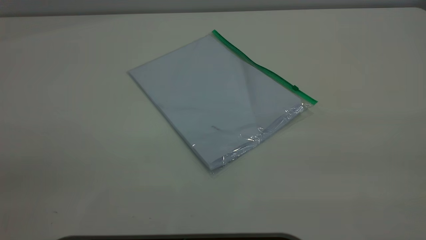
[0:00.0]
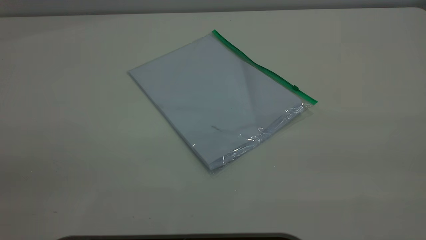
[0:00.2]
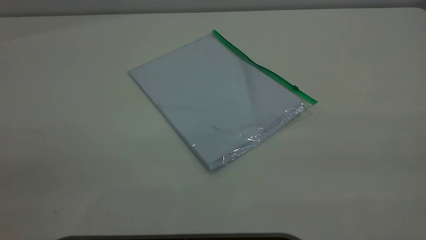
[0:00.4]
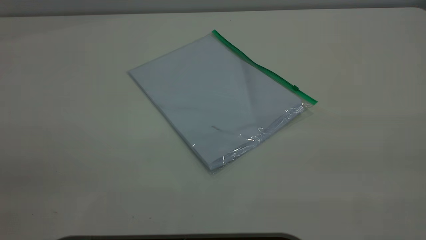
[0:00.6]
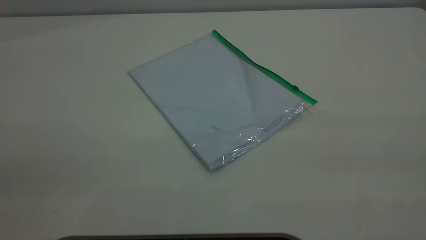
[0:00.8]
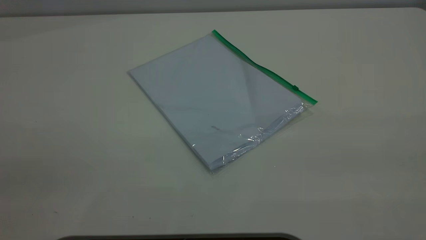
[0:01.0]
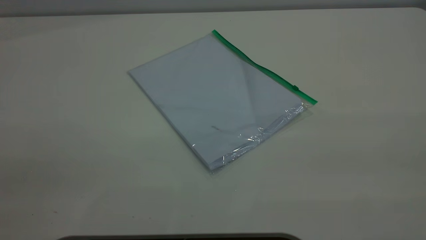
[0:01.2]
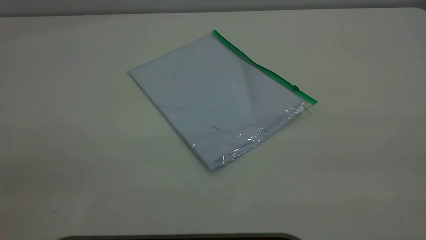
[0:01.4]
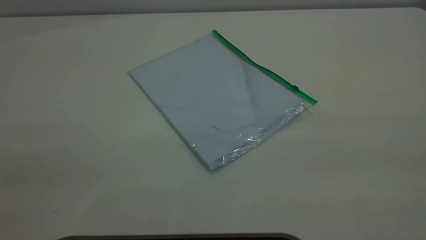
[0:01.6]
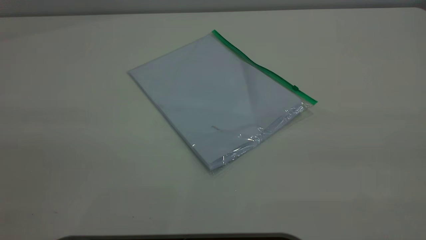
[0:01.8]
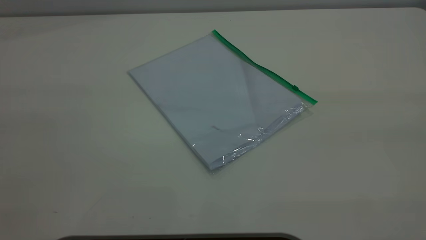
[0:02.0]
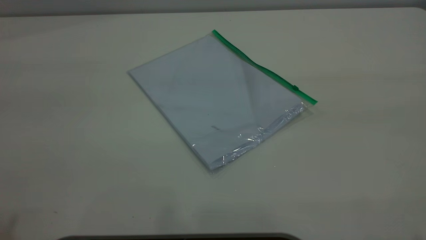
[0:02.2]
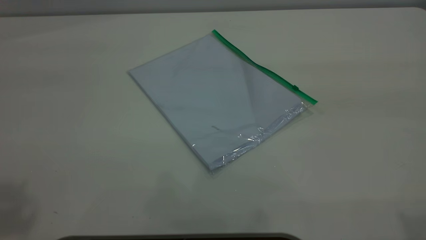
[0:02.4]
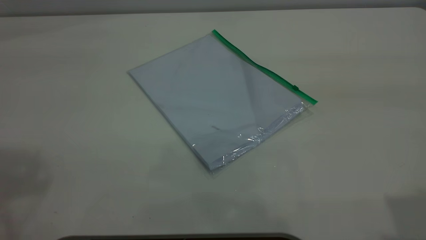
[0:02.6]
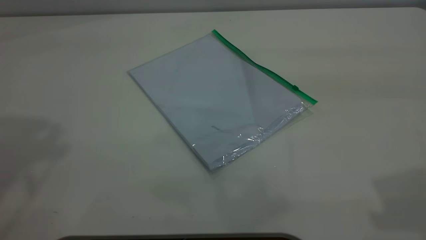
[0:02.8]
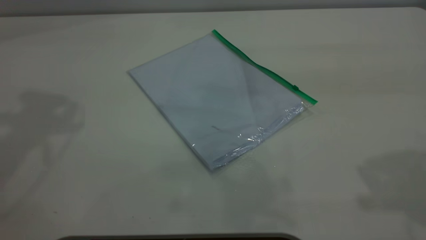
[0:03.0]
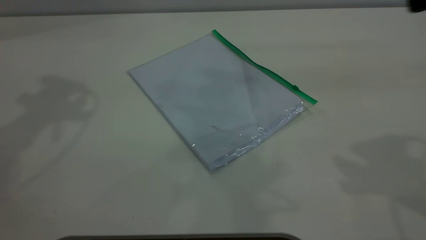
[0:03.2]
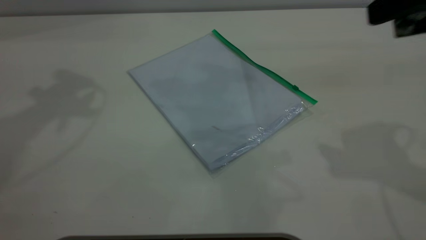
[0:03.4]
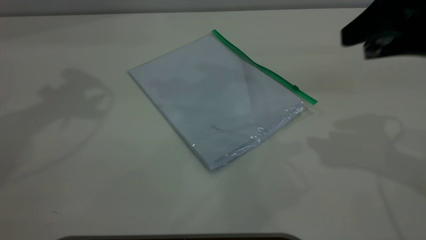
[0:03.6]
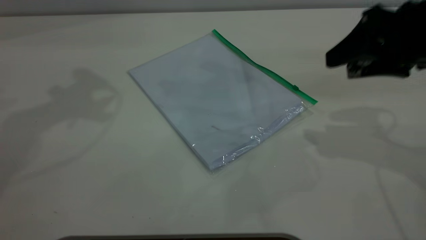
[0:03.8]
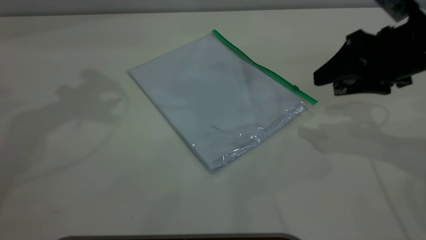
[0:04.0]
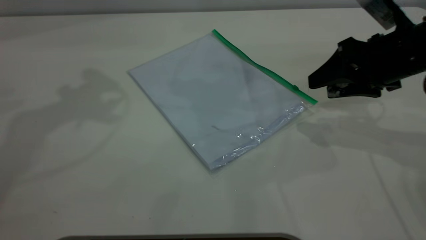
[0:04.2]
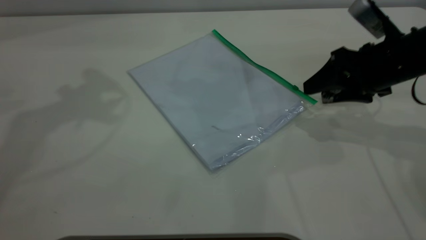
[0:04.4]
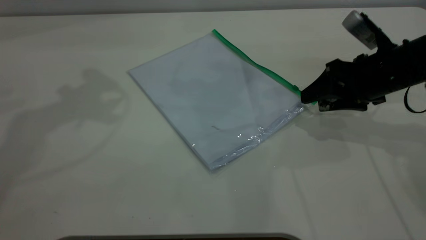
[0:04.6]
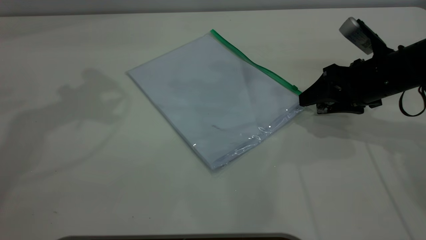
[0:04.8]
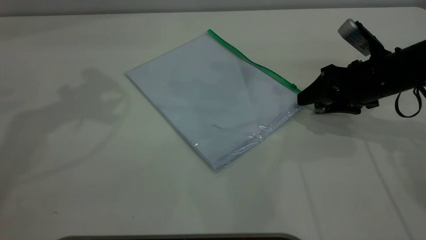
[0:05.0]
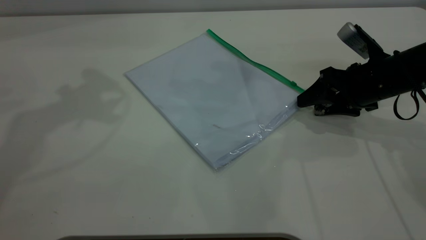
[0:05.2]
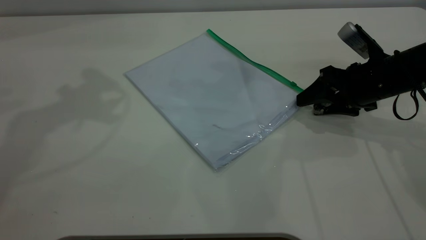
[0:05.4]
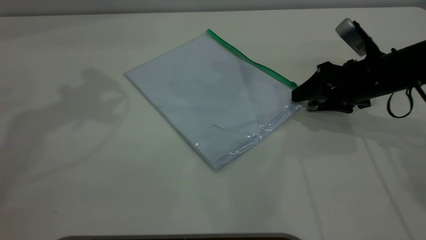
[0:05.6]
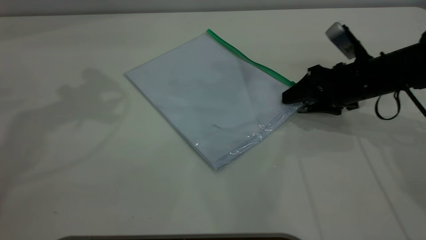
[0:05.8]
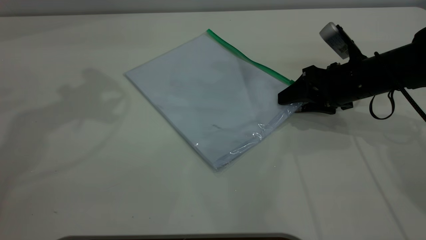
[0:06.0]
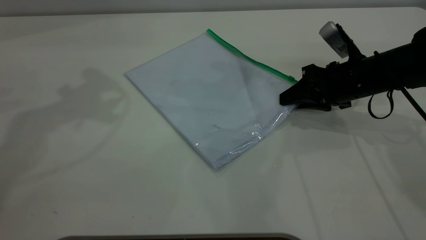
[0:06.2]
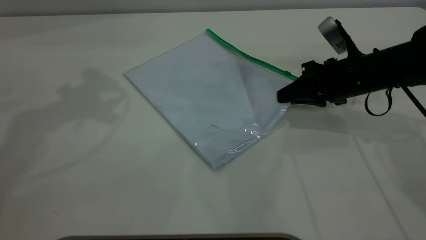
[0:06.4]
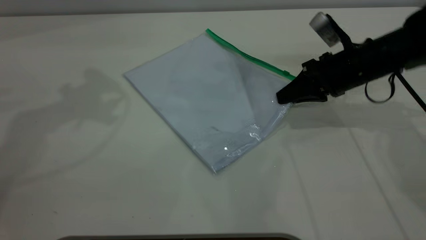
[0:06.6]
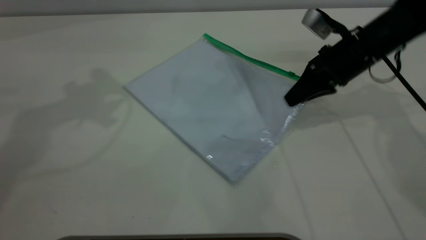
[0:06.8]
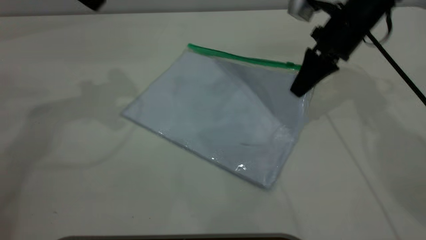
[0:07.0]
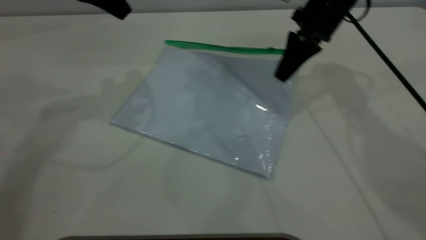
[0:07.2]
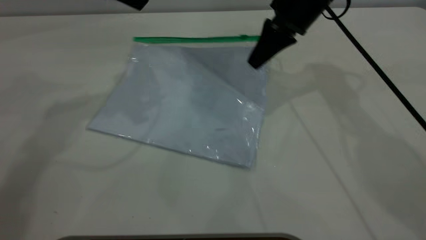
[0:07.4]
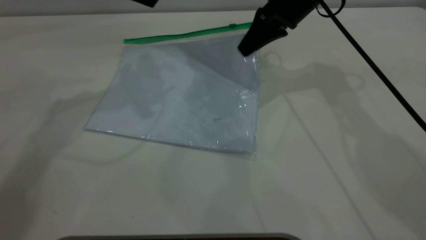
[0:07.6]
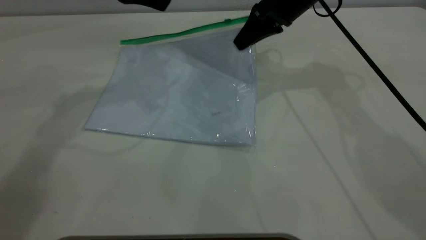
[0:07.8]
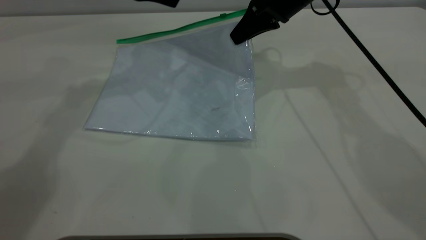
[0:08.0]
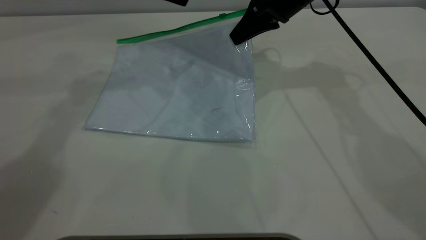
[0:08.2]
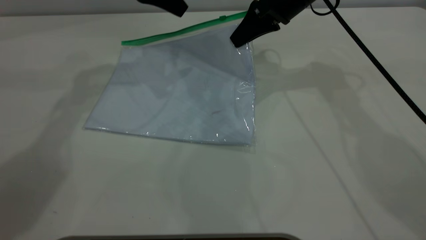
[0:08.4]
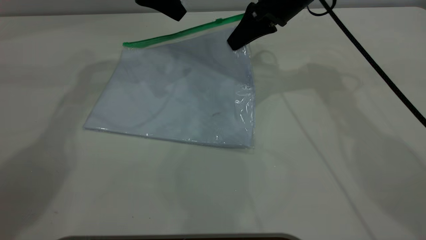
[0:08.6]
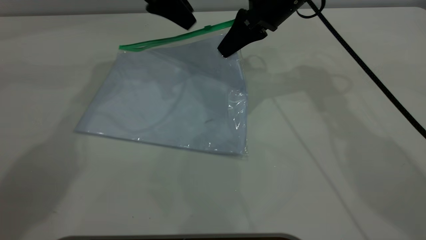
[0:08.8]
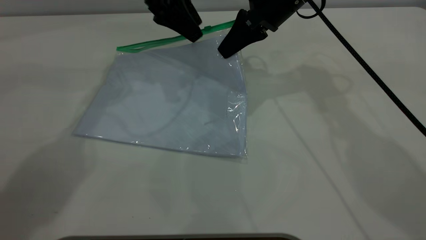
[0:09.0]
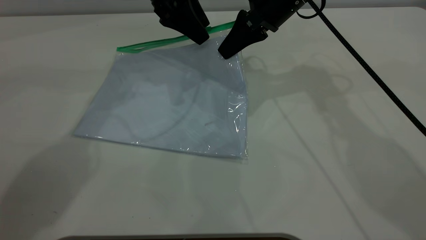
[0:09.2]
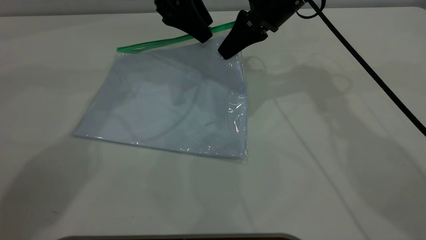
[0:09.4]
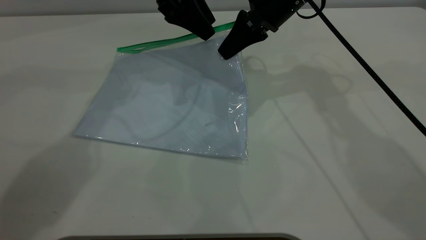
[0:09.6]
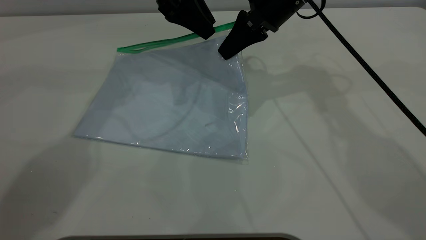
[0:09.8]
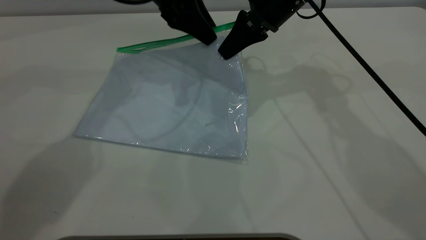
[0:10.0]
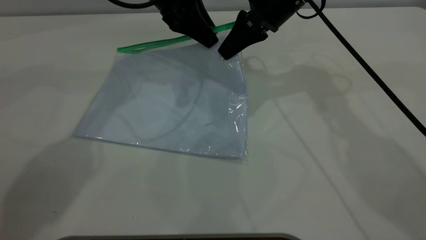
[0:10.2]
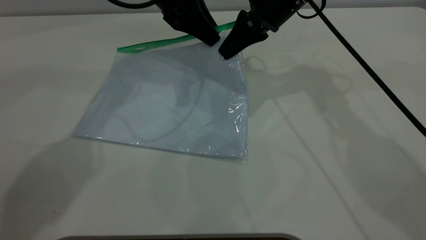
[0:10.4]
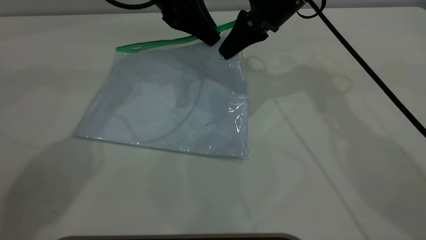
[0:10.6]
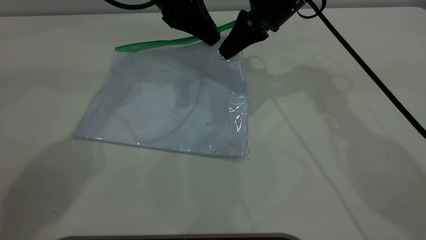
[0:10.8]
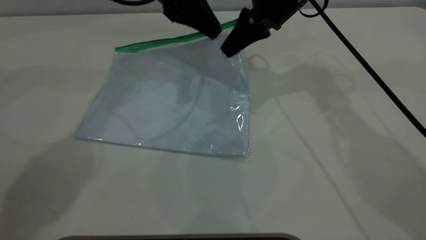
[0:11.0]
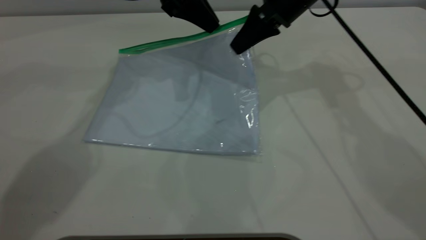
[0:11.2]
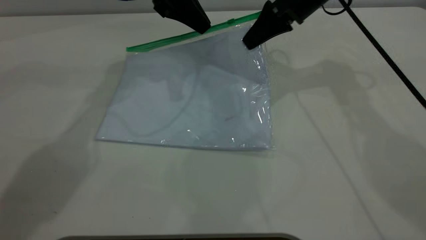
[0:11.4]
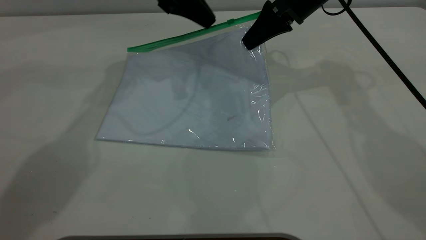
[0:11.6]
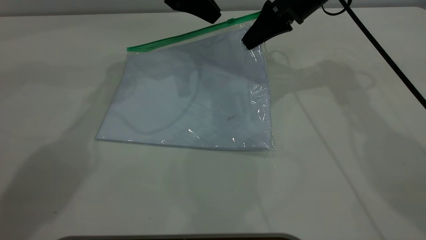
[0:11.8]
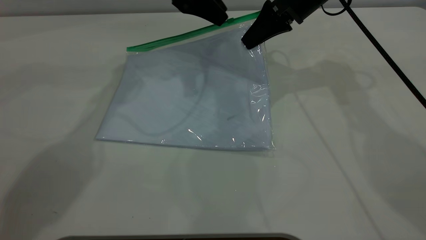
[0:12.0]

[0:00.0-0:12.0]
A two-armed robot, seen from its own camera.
Step, 0:00.0 to 0:06.6: Pick up the transparent plastic bag with the right gripper.
0:00.0 to 0:01.6: Both grippers stay put.
0:03.0 to 0:04.4: The right gripper goes roughly 25 cm downward and forward.
0:04.4 to 0:06.0: The right gripper moves downward, about 5 cm.
0:06.0 to 0:07.6: The left gripper goes some 10 cm downward and to the right. Meanwhile the right gripper moves upward, forward and to the left, roughly 15 cm, and closes.
0:07.6 to 0:09.0: The left gripper heads to the right, forward and downward, covering some 10 cm.
0:09.0 to 0:10.4: The left gripper closes up.
0:10.4 to 0:12.0: The grippers move only a little.

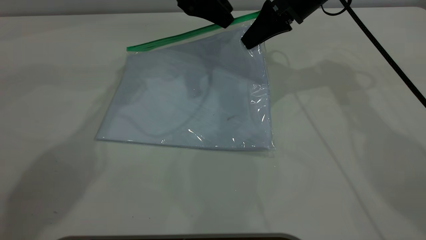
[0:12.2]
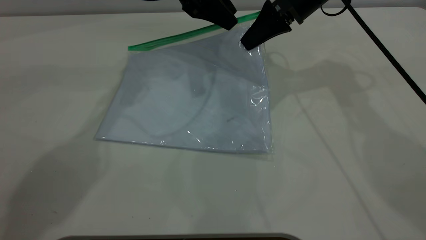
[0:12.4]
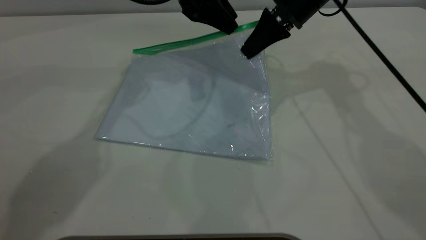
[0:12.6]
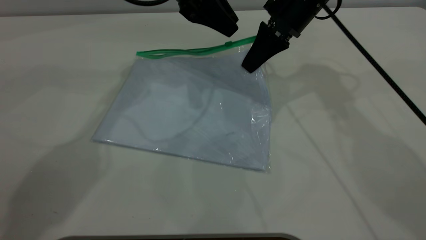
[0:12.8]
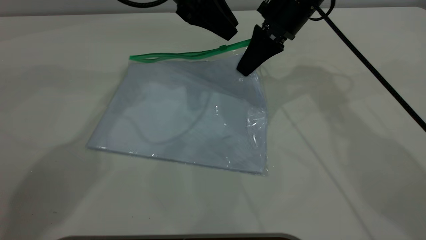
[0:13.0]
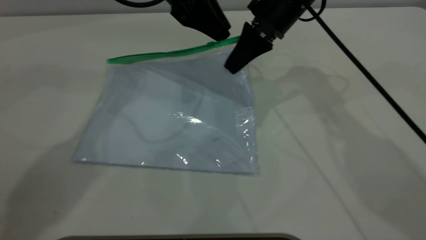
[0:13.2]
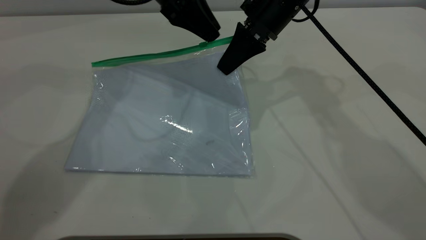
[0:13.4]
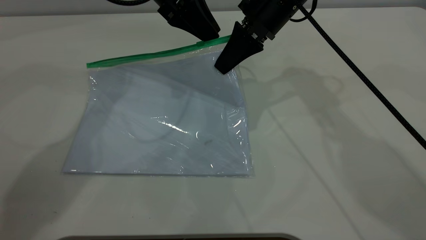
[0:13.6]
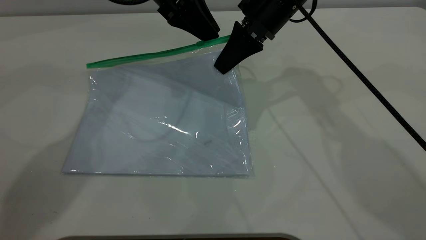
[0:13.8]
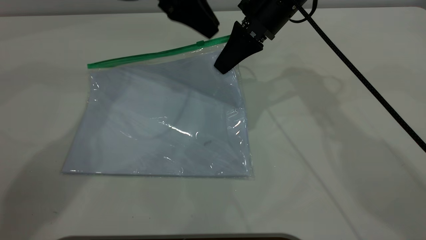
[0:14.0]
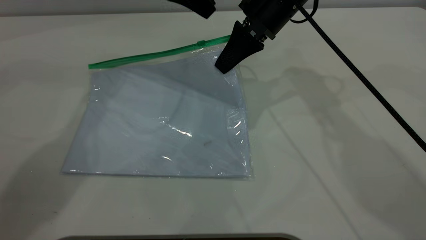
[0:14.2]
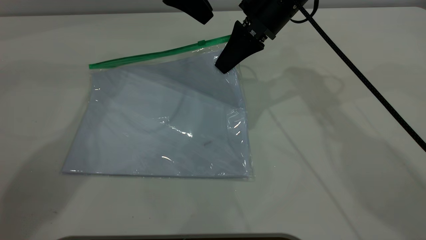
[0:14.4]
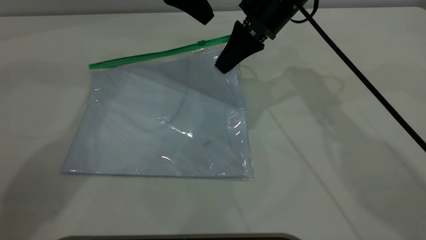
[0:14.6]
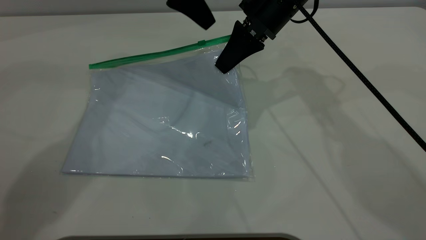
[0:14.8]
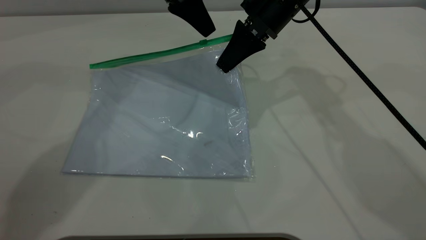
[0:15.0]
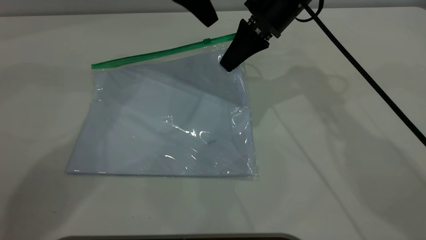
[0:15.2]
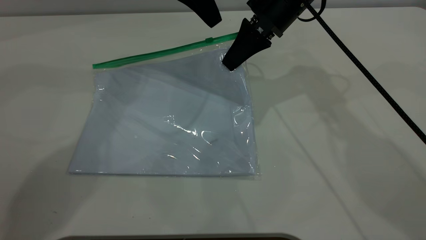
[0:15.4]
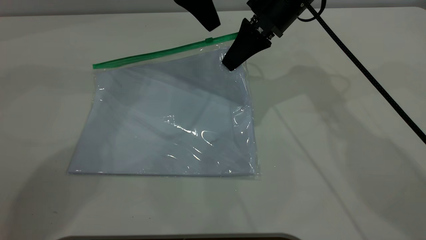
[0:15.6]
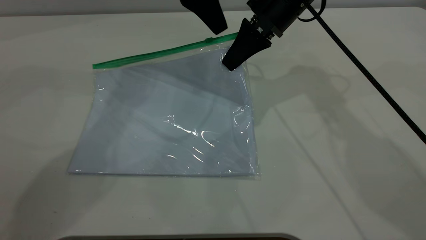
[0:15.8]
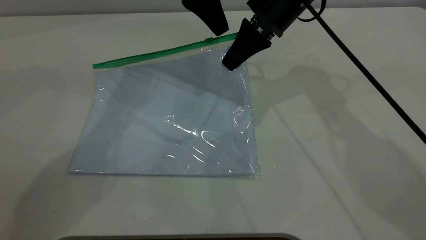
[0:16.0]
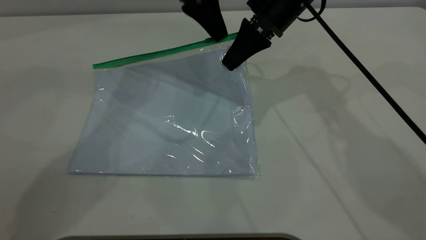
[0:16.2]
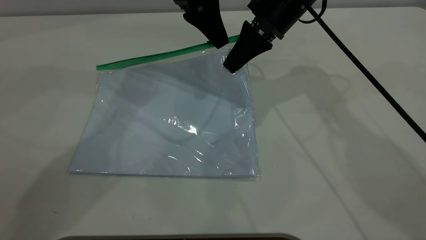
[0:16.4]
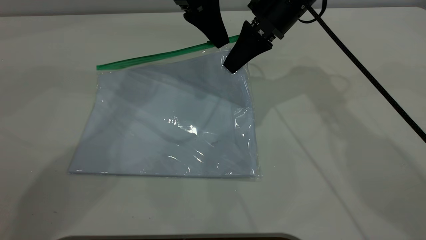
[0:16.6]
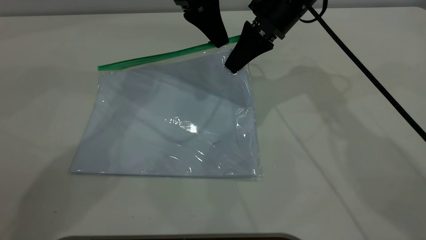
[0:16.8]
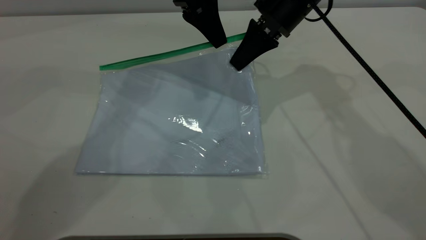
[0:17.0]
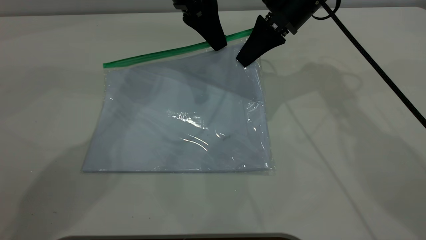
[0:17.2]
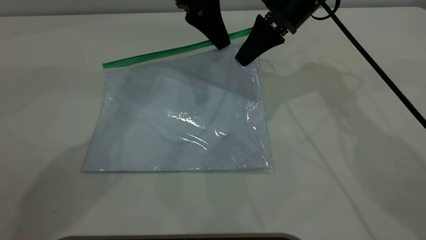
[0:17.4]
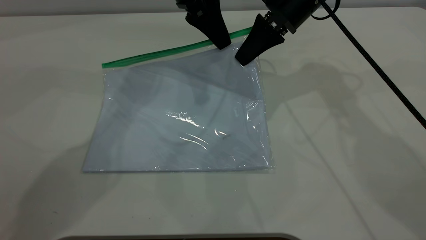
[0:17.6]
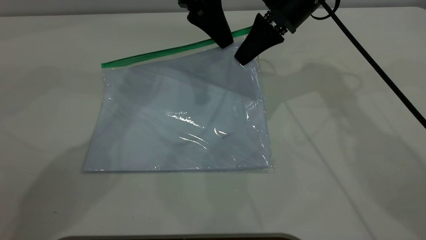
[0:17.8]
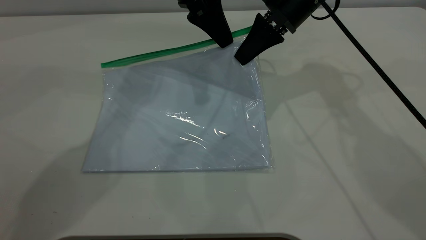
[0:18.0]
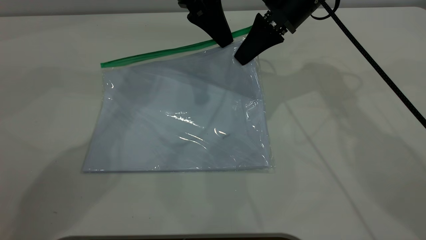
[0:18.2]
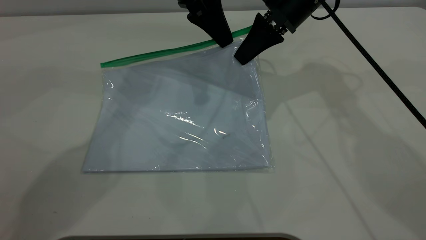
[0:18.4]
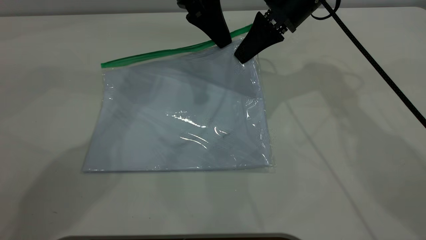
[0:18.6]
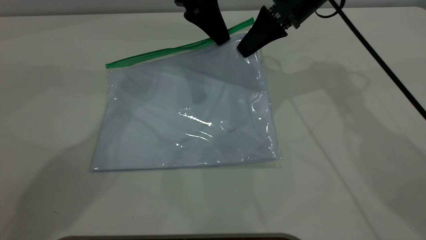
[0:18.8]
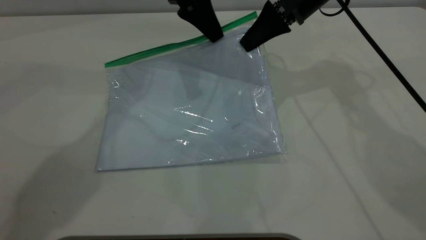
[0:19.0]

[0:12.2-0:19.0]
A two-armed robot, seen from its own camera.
0:12.2 to 0:13.6: The right gripper is displaced to the left by roughly 5 cm.
0:13.6 to 0:16.2: The grippers make only small movements.
0:16.2 to 0:17.6: The left gripper closes its fingers.
0:17.6 to 0:19.0: The left gripper closes its fingers.
